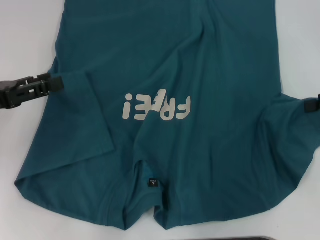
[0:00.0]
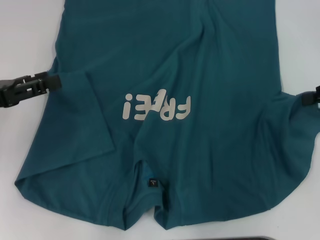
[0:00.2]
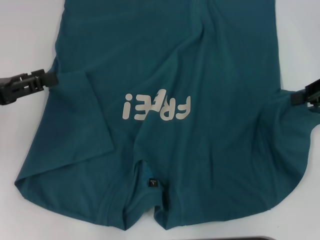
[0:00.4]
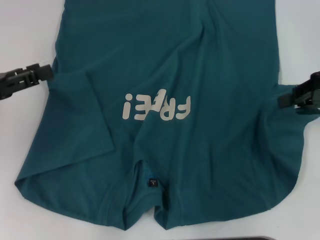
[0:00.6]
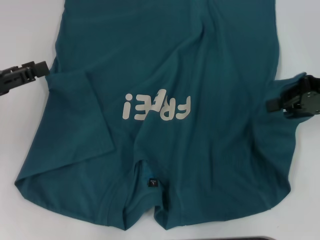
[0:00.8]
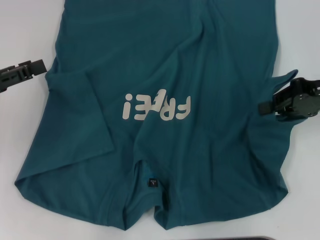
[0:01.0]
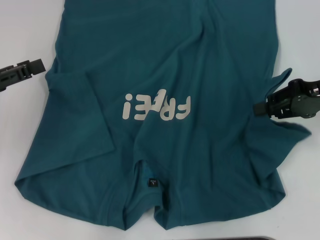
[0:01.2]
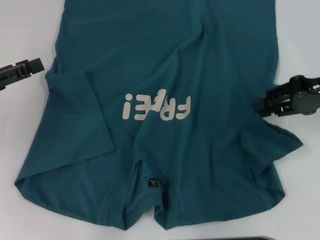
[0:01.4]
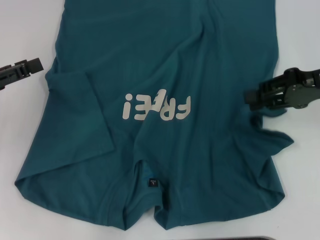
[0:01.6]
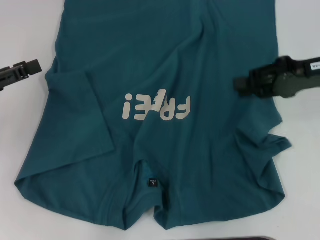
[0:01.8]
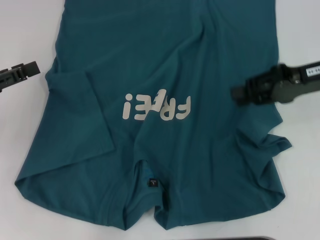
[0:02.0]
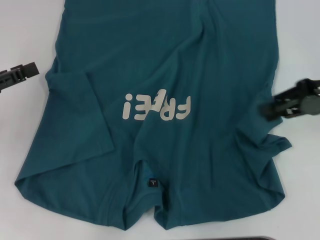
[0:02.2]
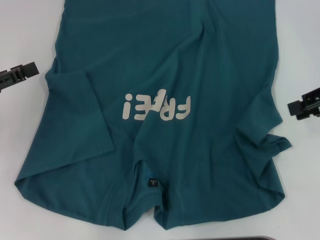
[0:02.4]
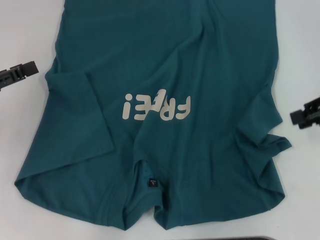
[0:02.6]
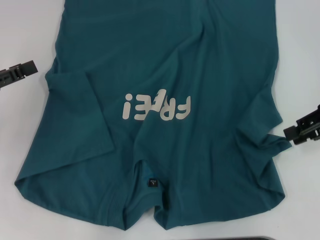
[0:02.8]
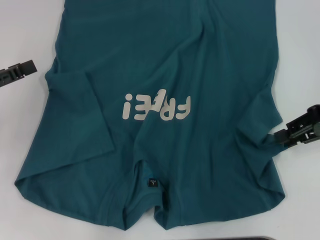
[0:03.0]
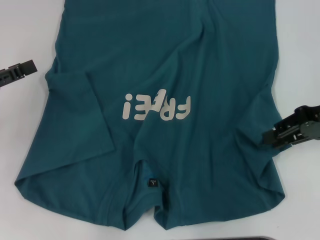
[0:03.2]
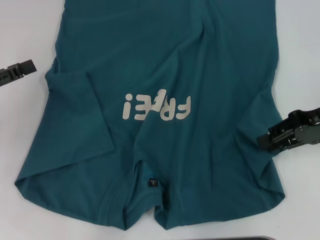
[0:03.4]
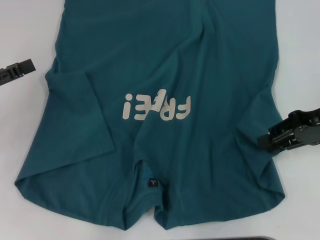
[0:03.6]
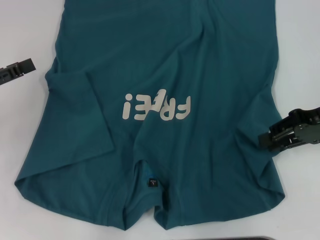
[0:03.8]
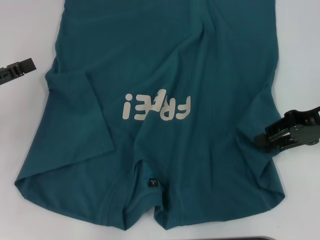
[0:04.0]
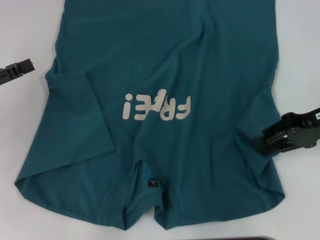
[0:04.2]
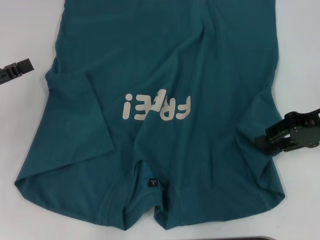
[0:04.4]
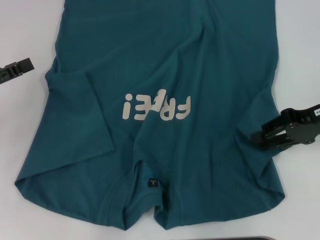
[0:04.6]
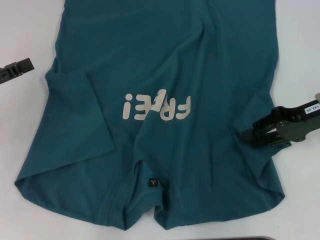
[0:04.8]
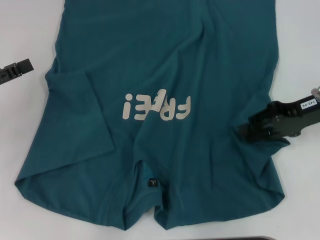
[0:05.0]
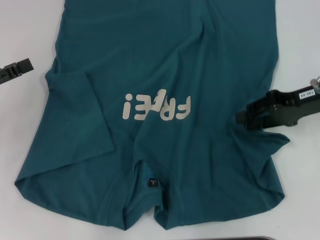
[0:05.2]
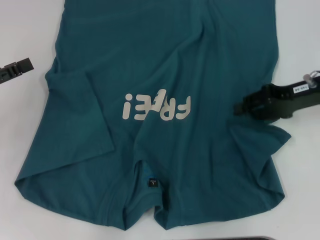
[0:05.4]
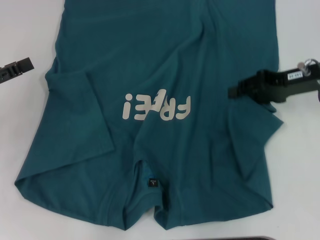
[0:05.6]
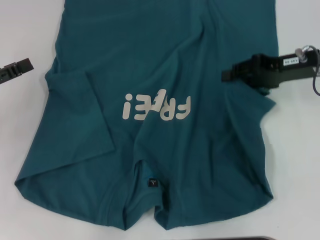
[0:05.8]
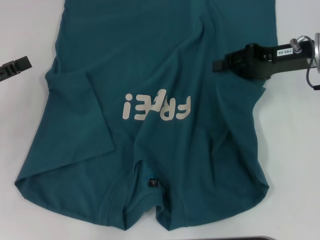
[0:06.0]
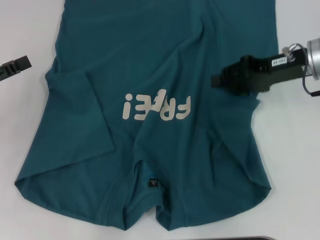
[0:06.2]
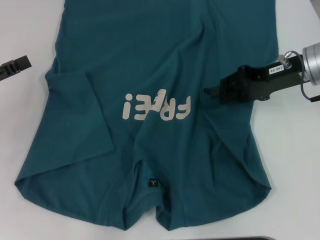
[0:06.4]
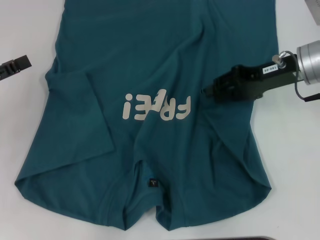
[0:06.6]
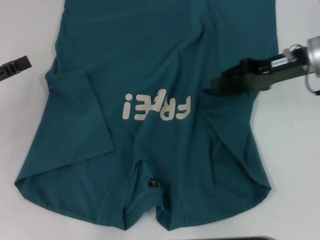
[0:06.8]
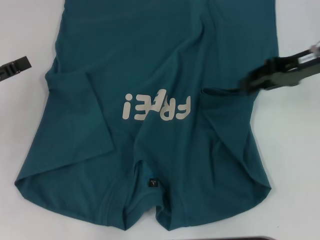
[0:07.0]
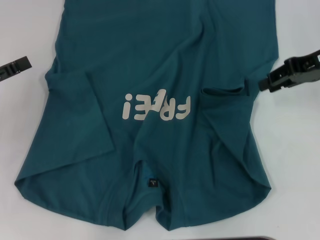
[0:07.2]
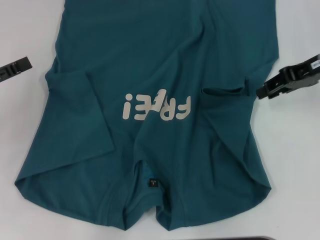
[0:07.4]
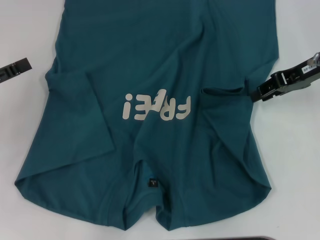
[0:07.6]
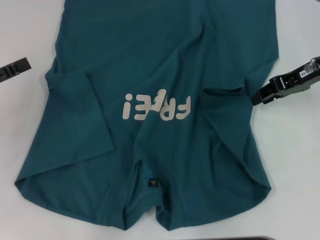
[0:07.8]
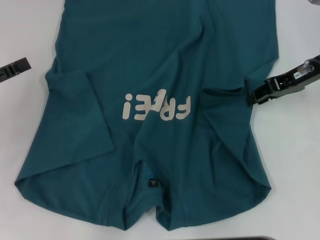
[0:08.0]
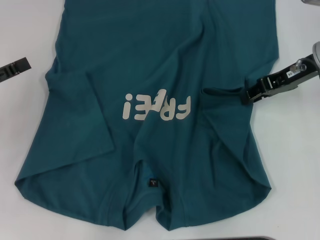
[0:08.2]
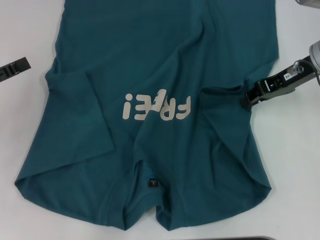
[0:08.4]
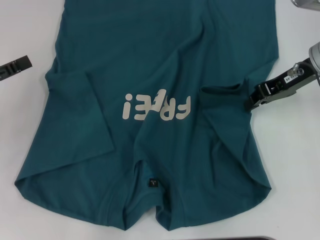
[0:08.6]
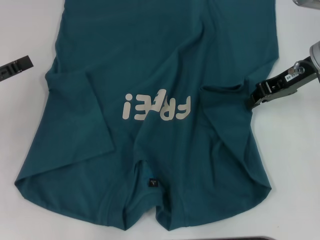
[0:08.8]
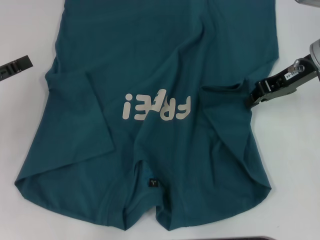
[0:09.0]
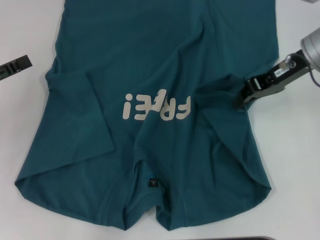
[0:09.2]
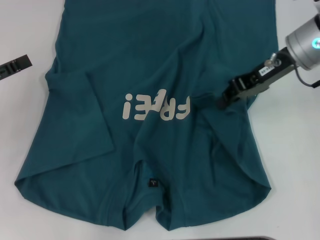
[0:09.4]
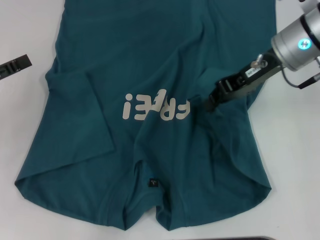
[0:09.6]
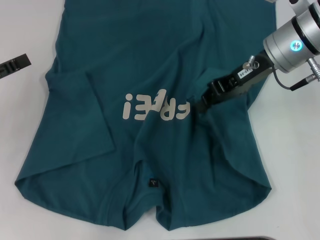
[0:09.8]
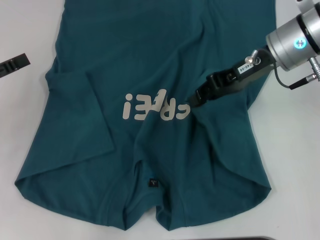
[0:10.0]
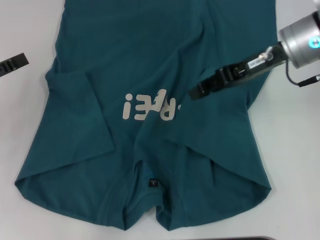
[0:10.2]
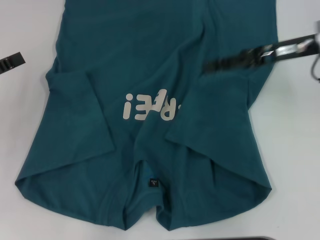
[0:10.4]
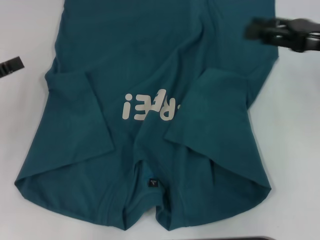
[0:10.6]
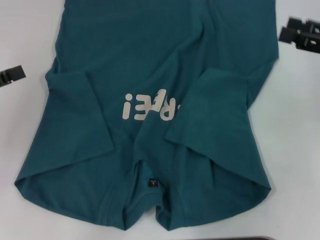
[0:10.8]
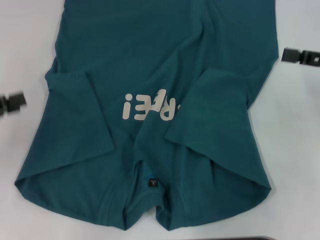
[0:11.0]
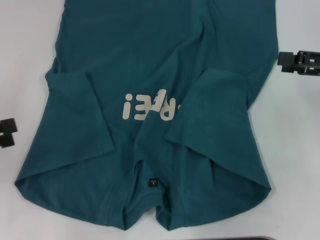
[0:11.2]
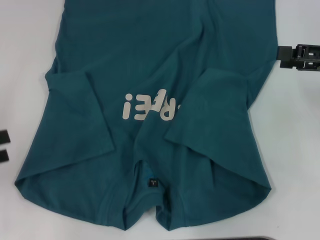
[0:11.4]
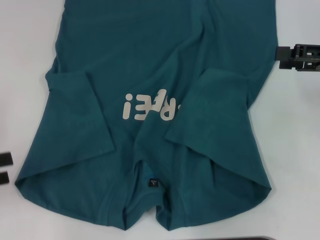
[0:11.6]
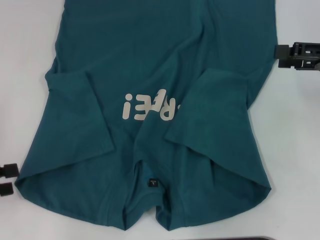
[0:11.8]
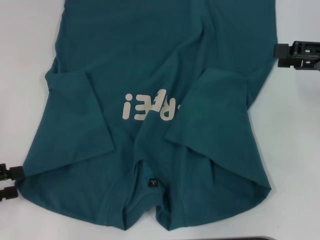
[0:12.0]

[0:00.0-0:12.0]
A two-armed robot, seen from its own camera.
Step, 0:00.0 to 0:10.2: Fold the bottom right sleeve to the right.
0:00.0 to 0:01.6: The right gripper moves to the left, approximately 5 cm.
0:01.6 to 0:04.4: The grippers stay close to where they were, moving slightly.
0:04.4 to 0:06.0: The right gripper moves forward, roughly 5 cm.
0:07.6 to 0:09.0: The right gripper closes.
0:10.4 to 0:12.0: The right gripper travels to the right by about 10 cm, and opens. Meanwhile the left gripper travels backward by roughly 10 cm.

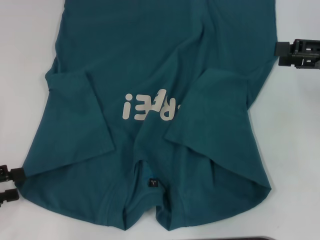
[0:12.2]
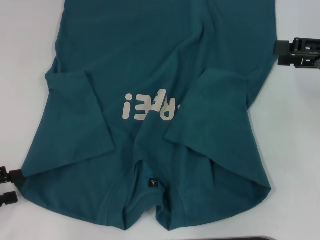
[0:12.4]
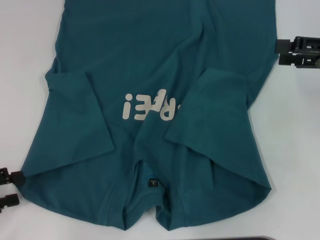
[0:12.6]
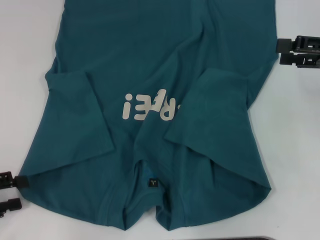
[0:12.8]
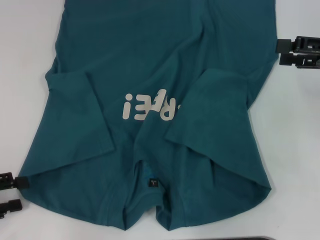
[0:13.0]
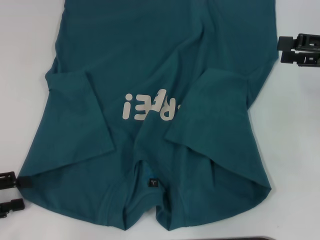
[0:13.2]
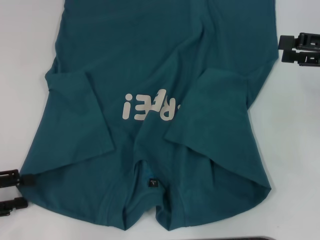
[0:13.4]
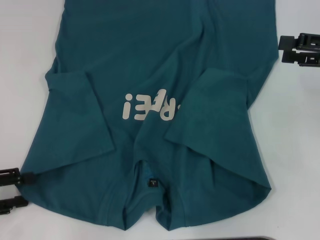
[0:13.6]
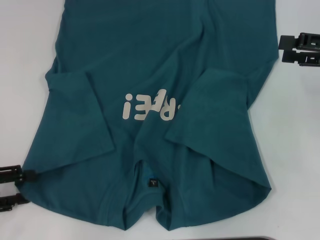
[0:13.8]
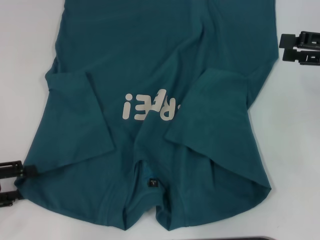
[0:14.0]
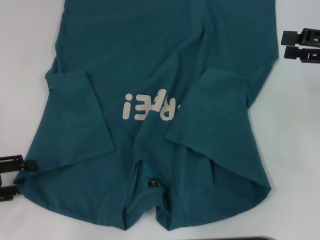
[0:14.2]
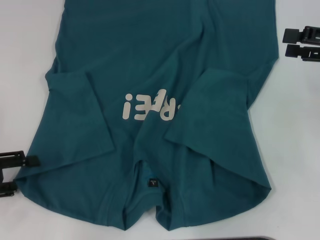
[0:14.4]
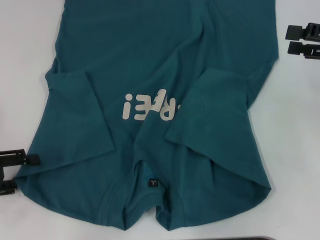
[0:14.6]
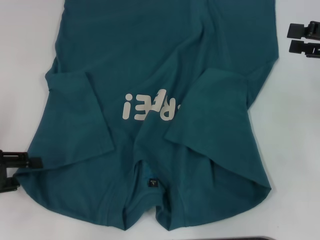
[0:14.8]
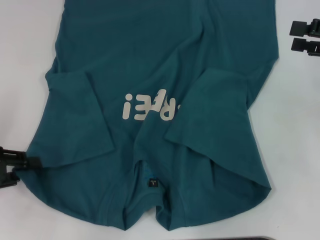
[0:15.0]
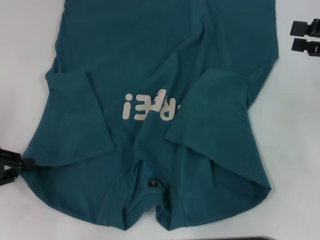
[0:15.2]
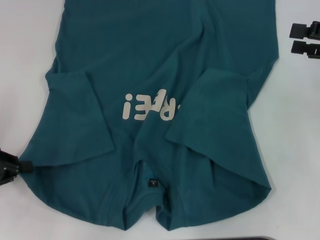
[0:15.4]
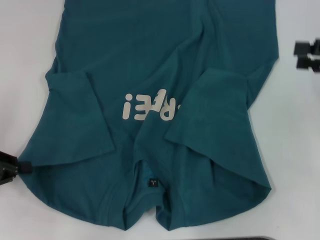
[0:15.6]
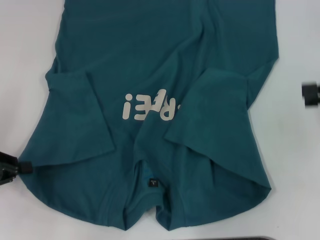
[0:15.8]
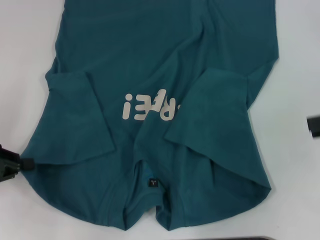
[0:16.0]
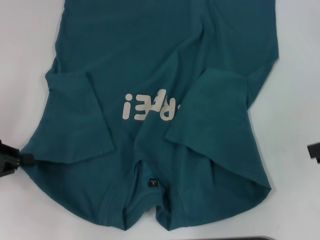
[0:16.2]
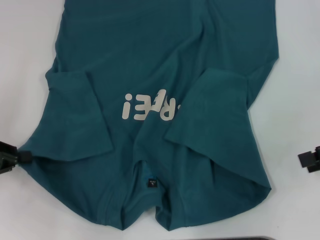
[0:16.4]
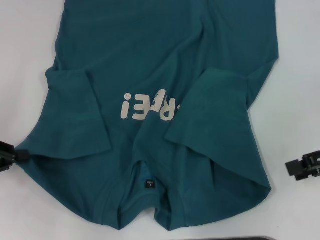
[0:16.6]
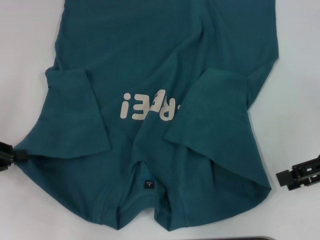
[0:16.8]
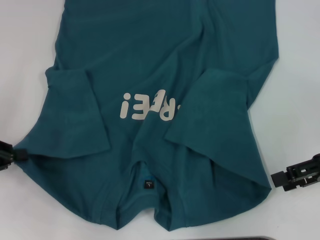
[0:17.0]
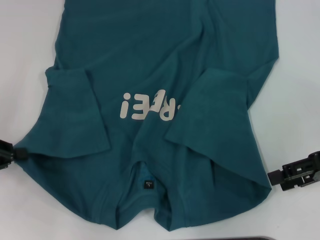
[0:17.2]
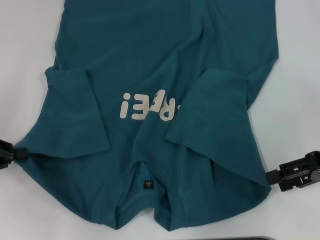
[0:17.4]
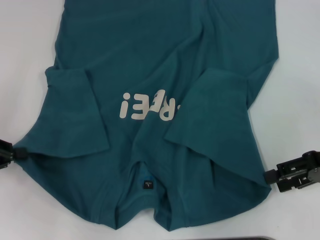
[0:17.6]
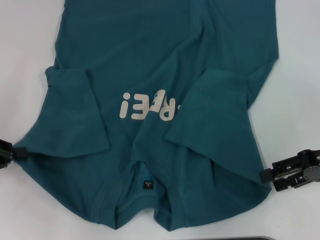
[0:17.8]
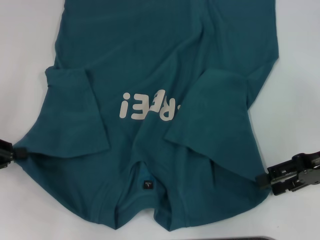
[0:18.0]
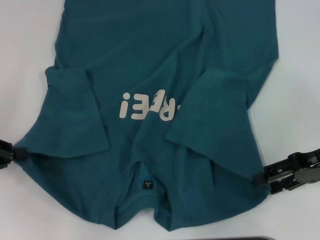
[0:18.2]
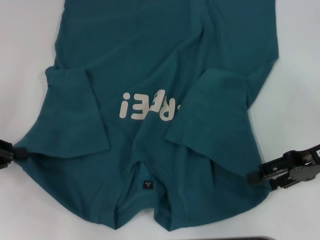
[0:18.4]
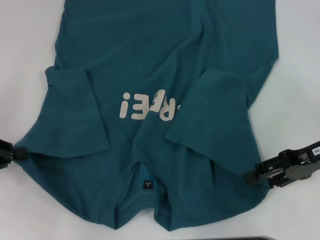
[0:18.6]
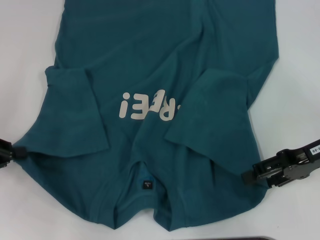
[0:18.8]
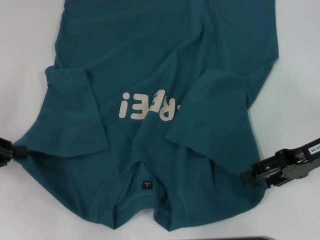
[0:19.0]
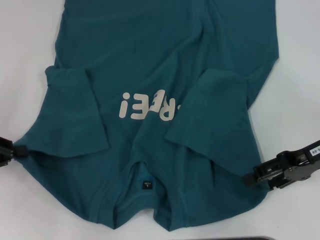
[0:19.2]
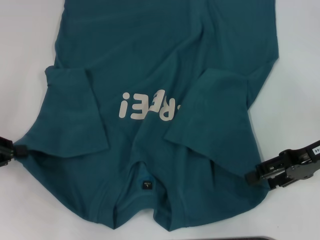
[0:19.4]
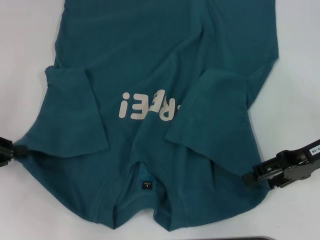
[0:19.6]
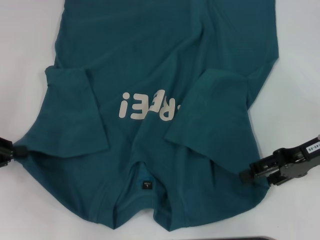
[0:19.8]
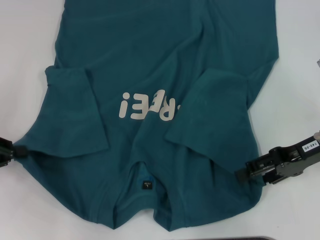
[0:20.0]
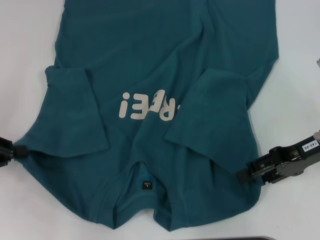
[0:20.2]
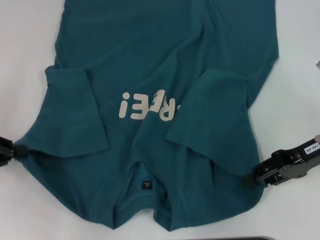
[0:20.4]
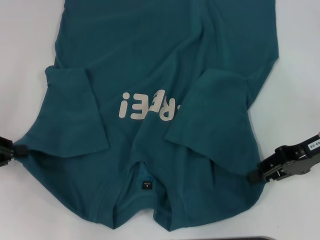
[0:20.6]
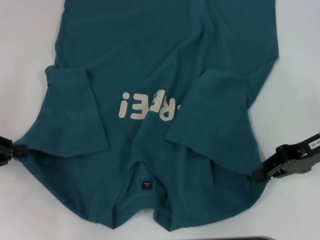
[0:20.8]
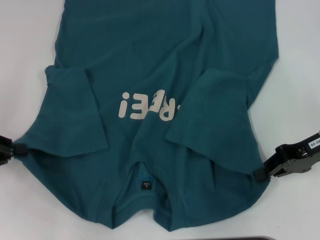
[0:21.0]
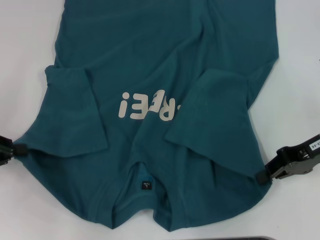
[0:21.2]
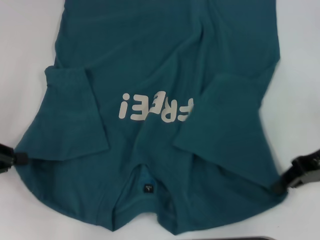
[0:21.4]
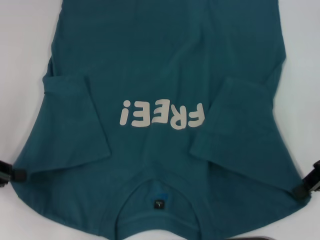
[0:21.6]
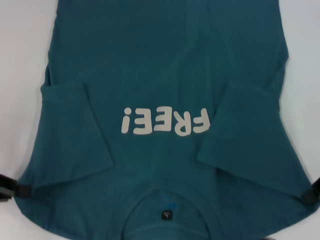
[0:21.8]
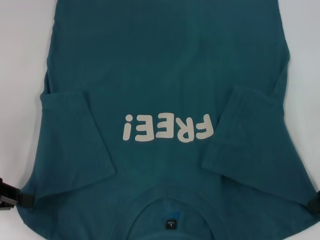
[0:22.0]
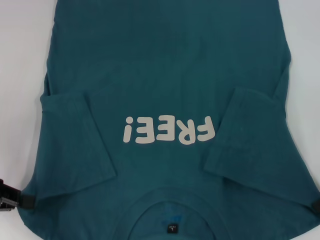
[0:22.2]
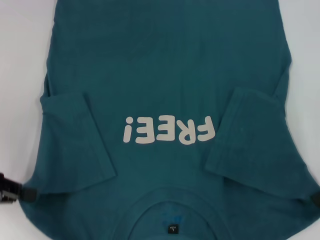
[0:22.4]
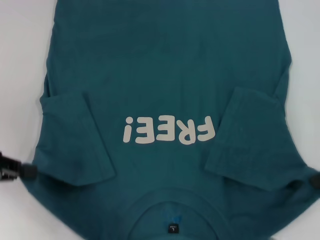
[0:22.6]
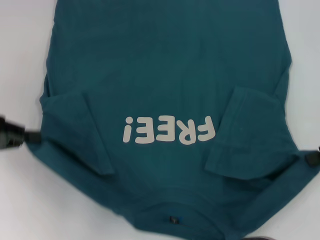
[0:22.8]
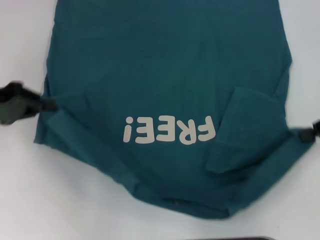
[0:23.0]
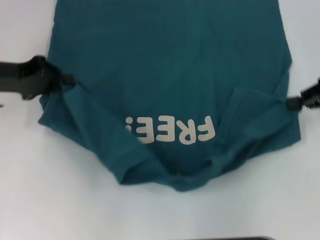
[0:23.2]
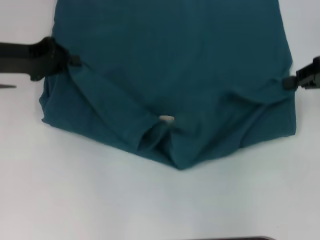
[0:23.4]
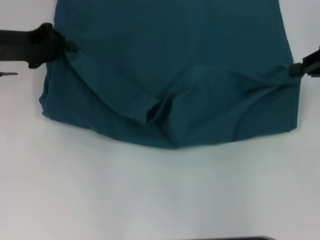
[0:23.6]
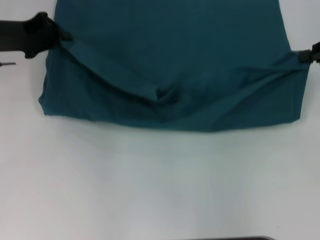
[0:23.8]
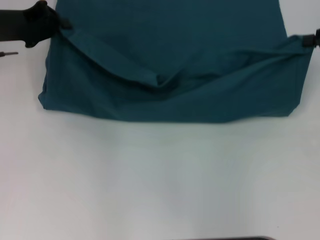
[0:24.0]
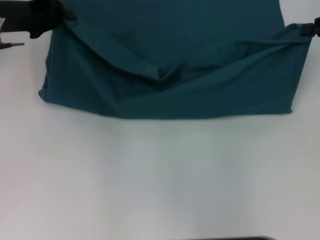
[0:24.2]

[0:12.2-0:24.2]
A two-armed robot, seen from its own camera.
Step, 0:12.2 to 0:15.6: Grab the bottom left corner with your left hand.
Step, 0:15.8 to 0:21.4: Grab the bottom right corner with your right hand.
0:12.2 to 0:13.8: The grippers move only a little.
0:13.8 to 0:15.2: The left gripper closes.
0:15.2 to 0:16.6: The right gripper moves some 5 cm.
0:16.6 to 0:18.2: The right gripper moves roughly 5 cm.
0:18.2 to 0:19.8: There are only small adjustments of the grippers.
0:19.8 to 0:21.2: The right gripper closes.
0:21.2 to 0:22.6: The right gripper moves to the right, approximately 5 cm.
0:22.6 to 0:24.2: The right gripper moves forward, approximately 10 cm; the left gripper shifts roughly 20 cm forward and to the right.
